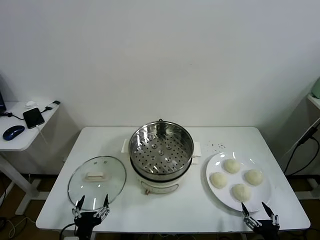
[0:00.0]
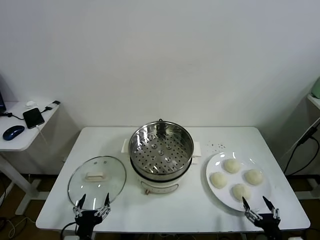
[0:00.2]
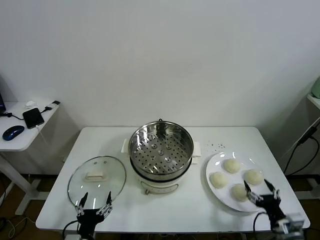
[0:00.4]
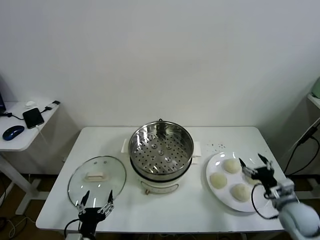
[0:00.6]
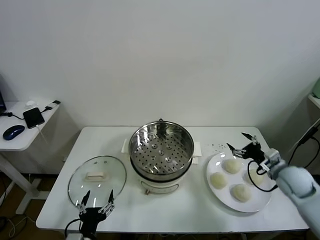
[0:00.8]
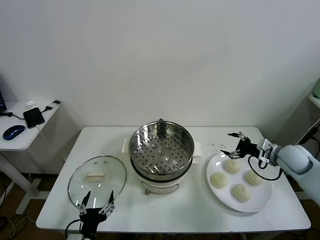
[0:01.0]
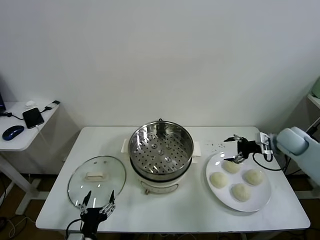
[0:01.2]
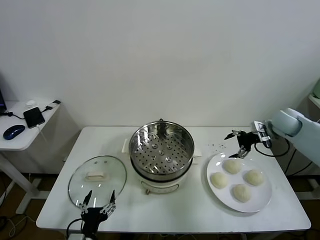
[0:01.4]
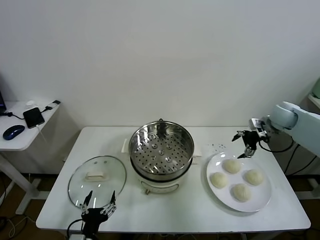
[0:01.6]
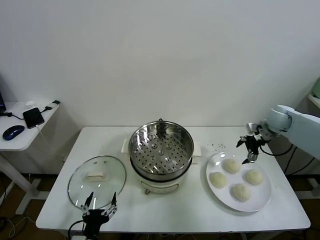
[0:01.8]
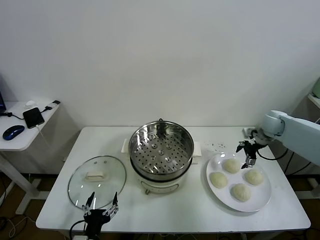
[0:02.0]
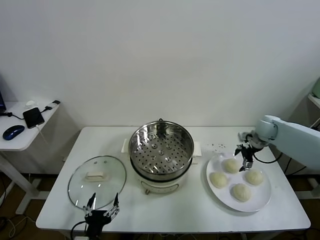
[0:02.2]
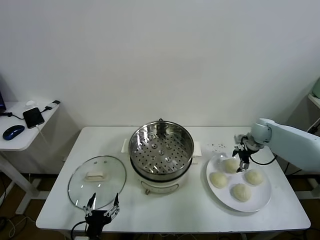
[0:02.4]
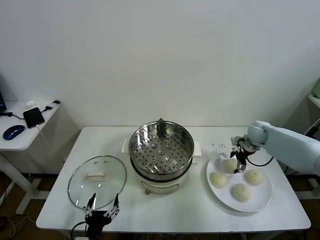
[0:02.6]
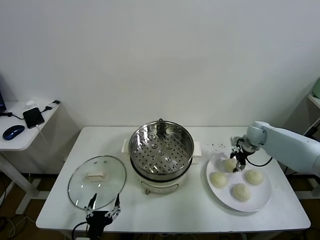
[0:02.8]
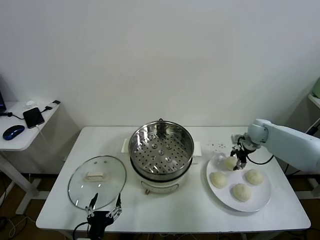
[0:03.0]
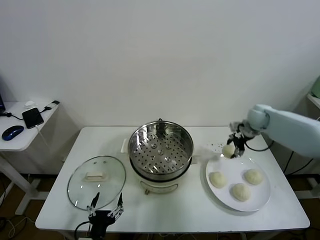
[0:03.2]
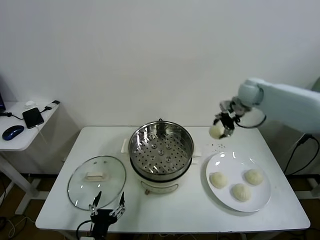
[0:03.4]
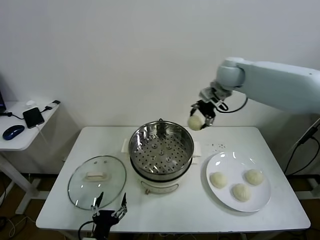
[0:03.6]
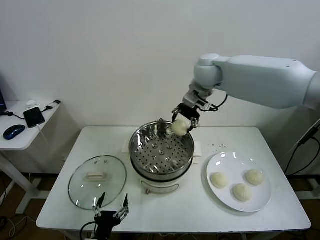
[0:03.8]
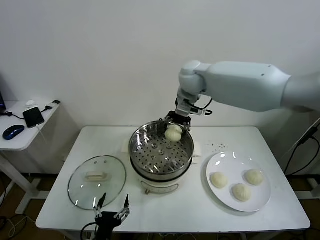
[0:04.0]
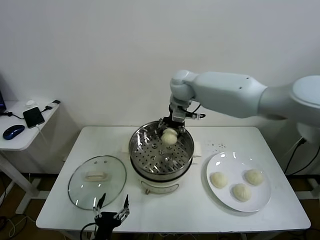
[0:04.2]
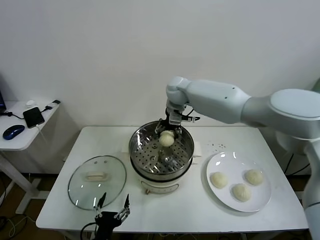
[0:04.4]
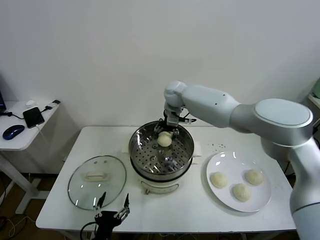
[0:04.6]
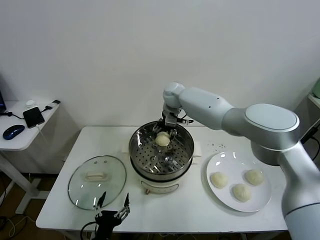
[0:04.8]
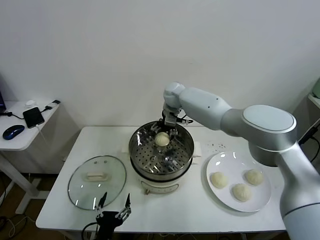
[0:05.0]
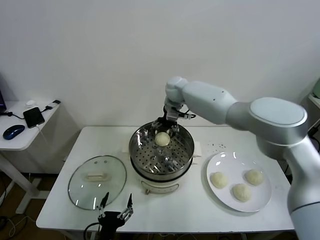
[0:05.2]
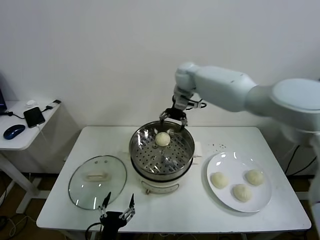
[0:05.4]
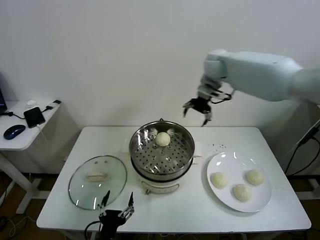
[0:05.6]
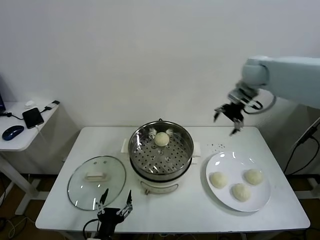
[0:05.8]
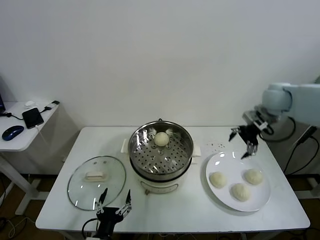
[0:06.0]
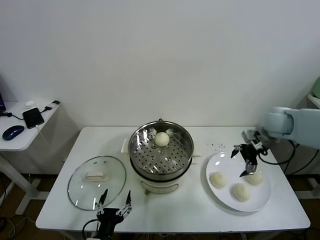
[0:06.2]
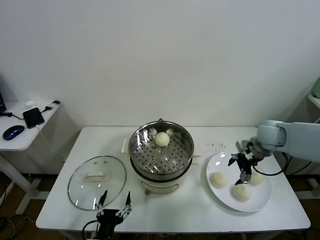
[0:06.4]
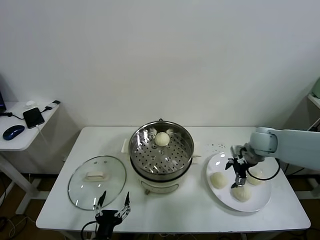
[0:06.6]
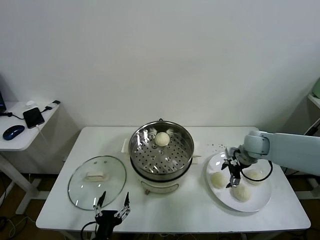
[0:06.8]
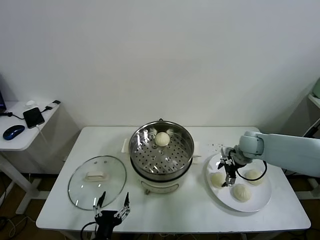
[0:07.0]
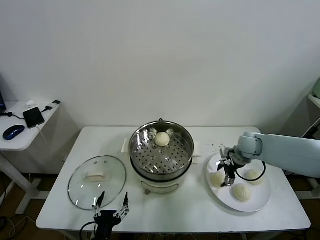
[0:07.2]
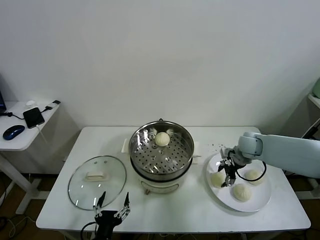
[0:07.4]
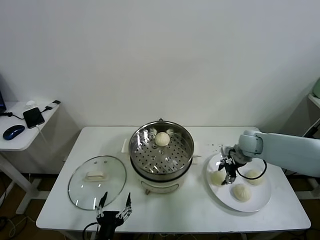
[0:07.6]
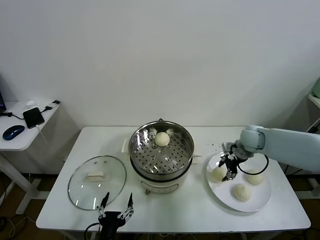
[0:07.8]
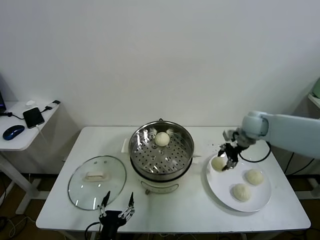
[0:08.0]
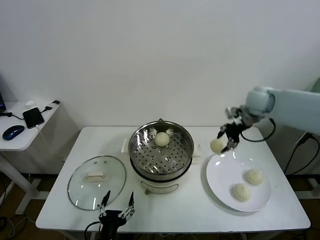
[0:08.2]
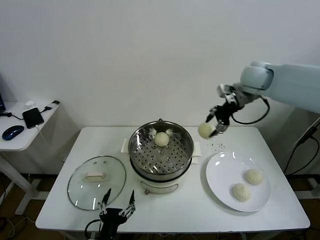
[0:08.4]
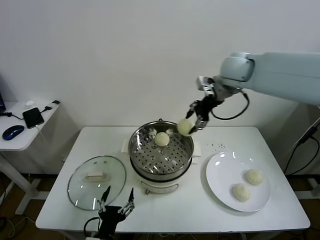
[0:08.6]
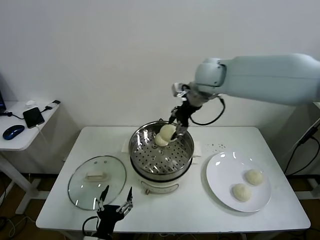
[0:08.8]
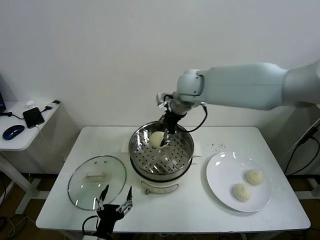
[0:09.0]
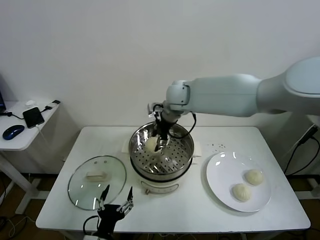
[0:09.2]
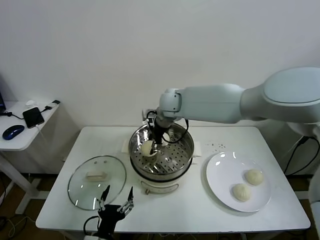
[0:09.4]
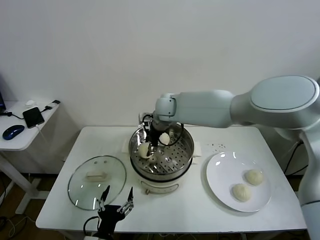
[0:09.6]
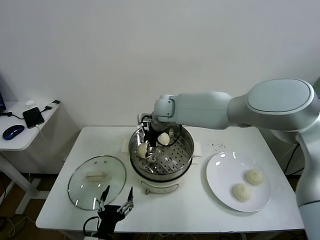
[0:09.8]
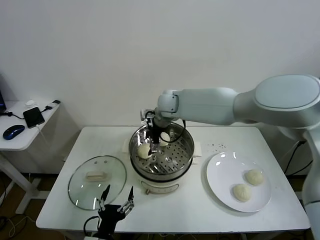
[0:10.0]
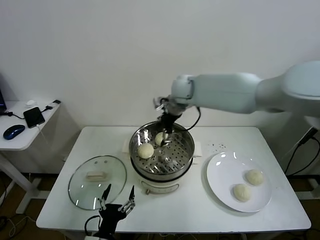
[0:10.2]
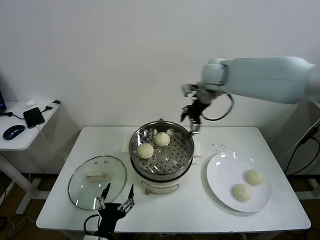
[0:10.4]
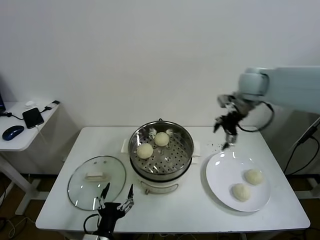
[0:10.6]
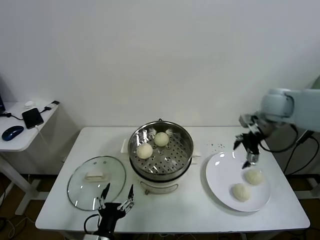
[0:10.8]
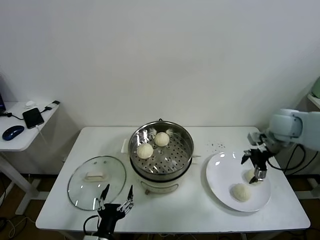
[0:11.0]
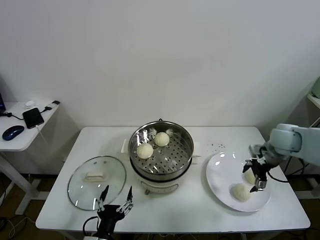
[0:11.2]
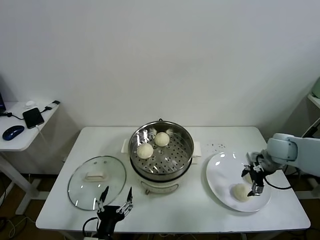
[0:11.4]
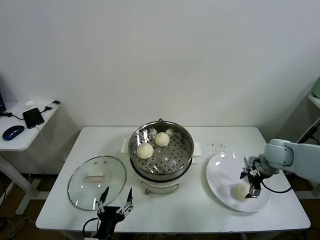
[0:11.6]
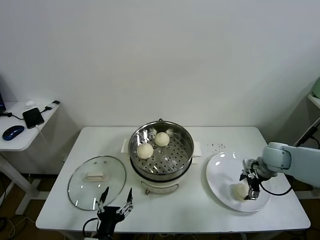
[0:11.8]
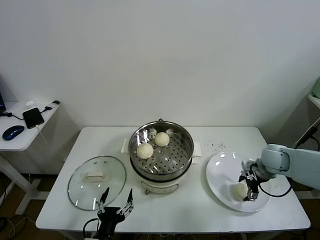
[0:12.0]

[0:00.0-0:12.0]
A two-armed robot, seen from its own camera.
Task of the whole recording: take steamed baozi put them in steamer.
Step, 0:00.0 to 0:02.8: Grasp the baozi in the plate with right gripper.
Step, 0:03.0 to 0:05.0: Place the baozi on the steamer with right gripper.
Step, 0:05.2 to 0:07.2: Grasp the baozi in the plate with right gripper.
Step, 0:07.4 to 0:09.8: Place the baozi on the steamer with right gripper.
0:01.6 to 0:03.0: The right gripper goes approximately 5 cm downward, and closes its fingers.
0:03.0 to 0:04.4: The right gripper is displaced to the left by roughly 35 cm.
0:04.4 to 0:06.0: The right gripper goes approximately 30 cm to the right, and opens its fingers.
0:06.0 to 0:07.6: The right gripper travels downward by about 15 cm, and closes its fingers.
0:07.6 to 0:09.0: The right gripper shifts roughly 35 cm to the left and upward.
0:09.0 to 0:10.4: The right gripper shifts roughly 15 cm to the right, and opens its fingers.
0:10.4 to 0:12.0: The right gripper moves downward, to the right and backward, approximately 35 cm.

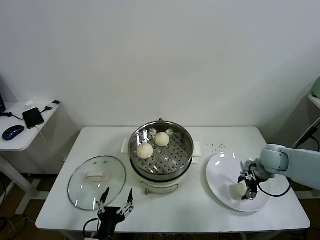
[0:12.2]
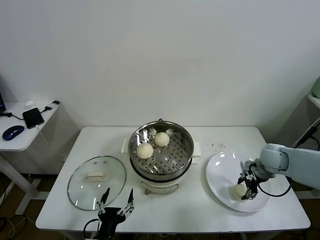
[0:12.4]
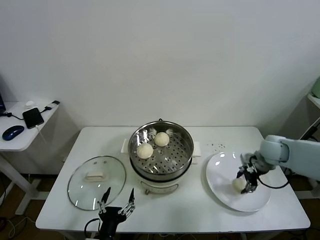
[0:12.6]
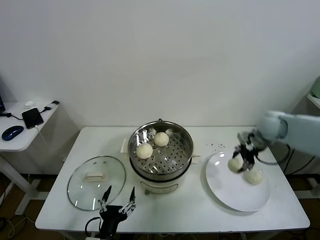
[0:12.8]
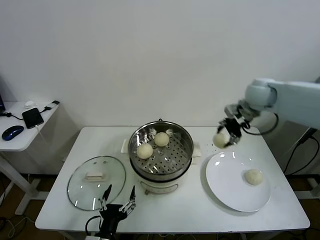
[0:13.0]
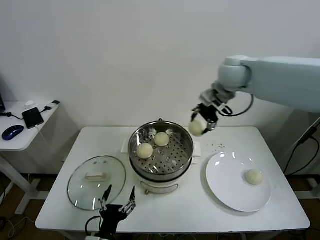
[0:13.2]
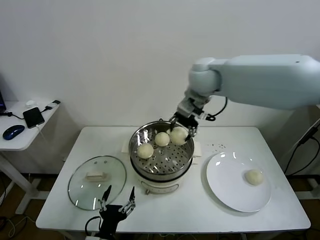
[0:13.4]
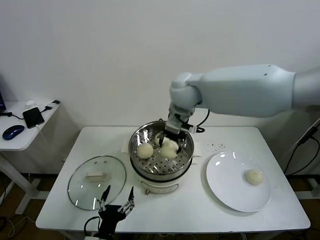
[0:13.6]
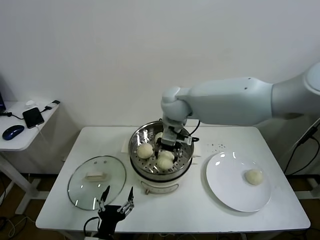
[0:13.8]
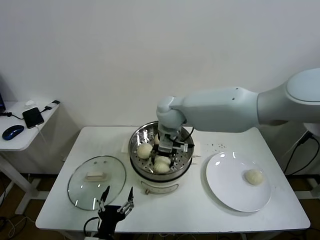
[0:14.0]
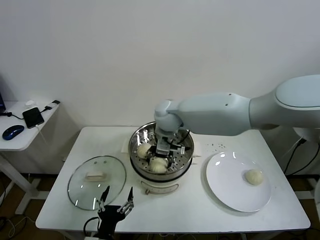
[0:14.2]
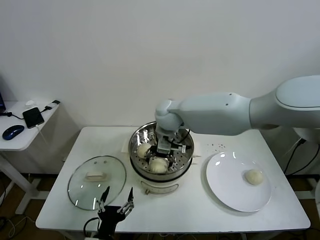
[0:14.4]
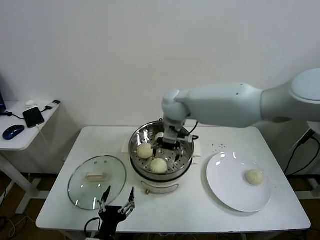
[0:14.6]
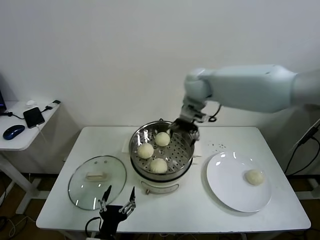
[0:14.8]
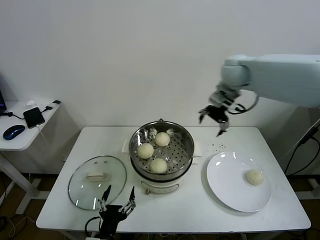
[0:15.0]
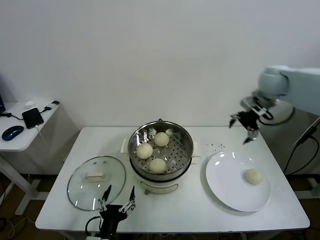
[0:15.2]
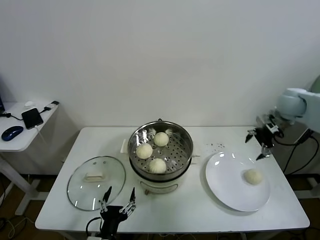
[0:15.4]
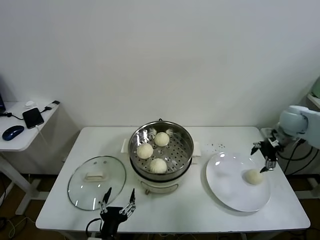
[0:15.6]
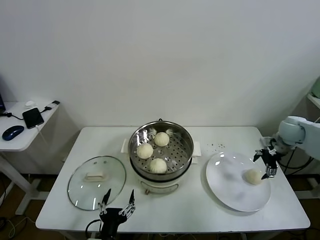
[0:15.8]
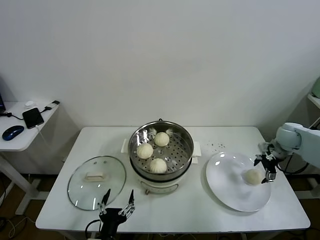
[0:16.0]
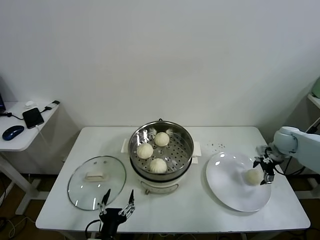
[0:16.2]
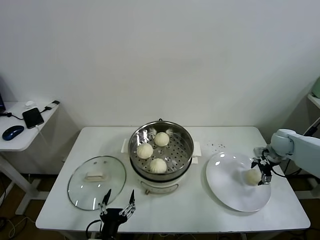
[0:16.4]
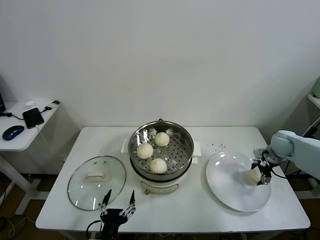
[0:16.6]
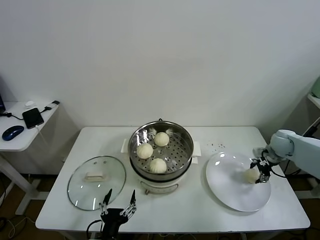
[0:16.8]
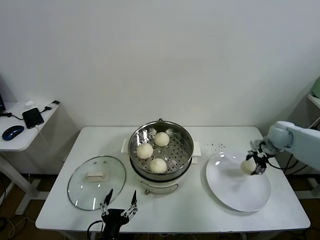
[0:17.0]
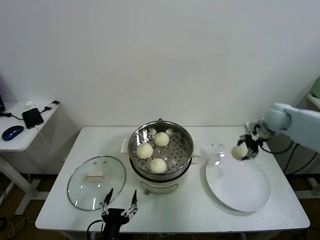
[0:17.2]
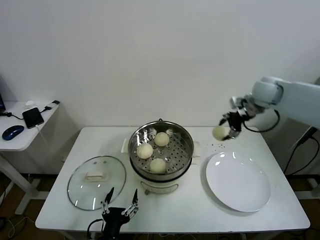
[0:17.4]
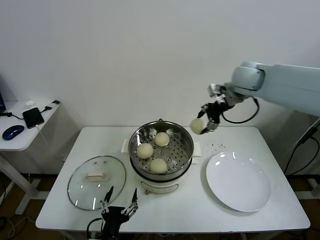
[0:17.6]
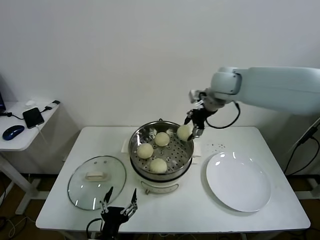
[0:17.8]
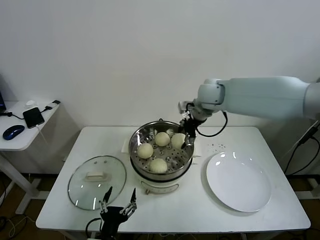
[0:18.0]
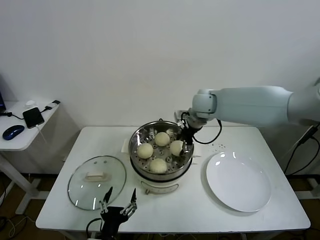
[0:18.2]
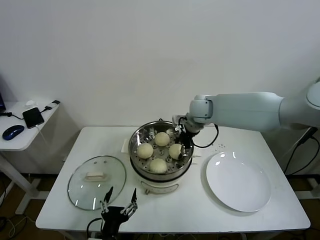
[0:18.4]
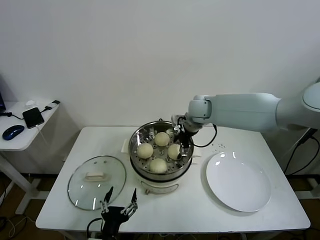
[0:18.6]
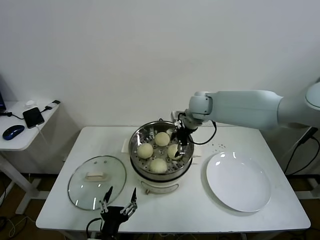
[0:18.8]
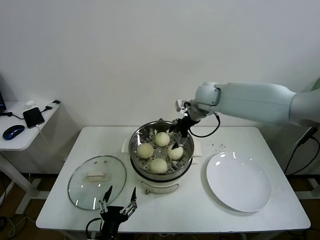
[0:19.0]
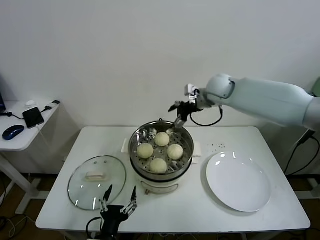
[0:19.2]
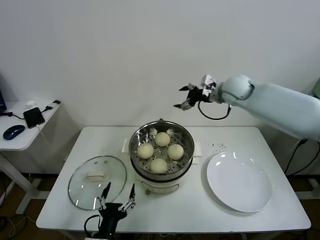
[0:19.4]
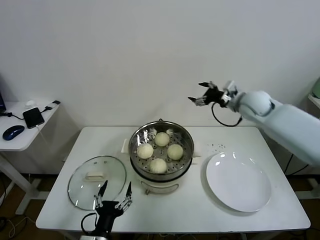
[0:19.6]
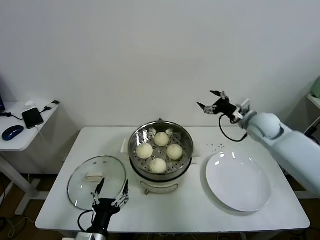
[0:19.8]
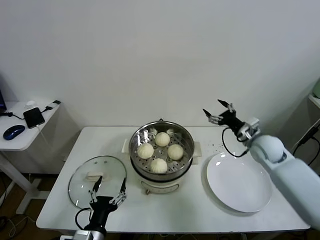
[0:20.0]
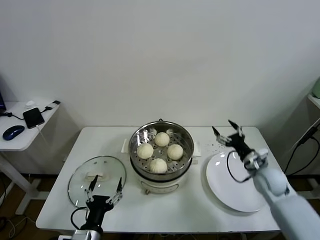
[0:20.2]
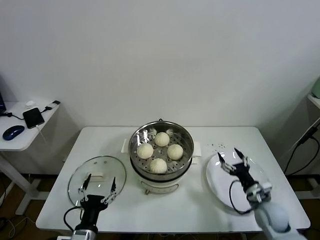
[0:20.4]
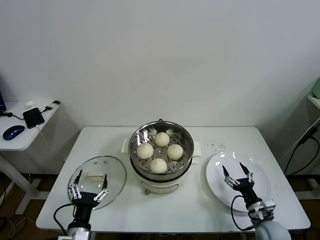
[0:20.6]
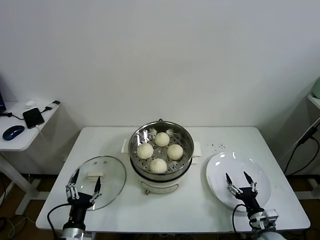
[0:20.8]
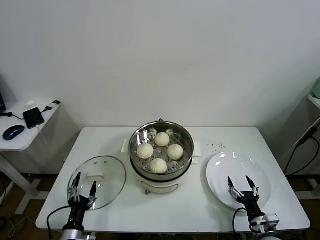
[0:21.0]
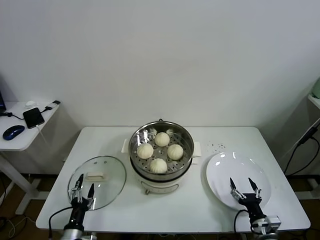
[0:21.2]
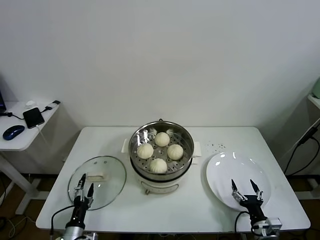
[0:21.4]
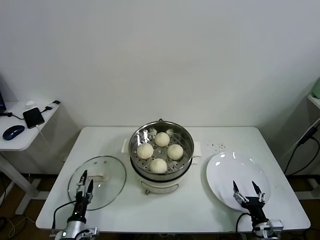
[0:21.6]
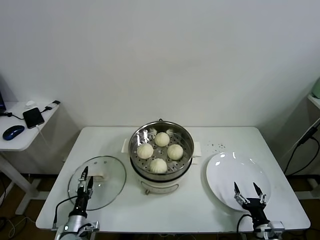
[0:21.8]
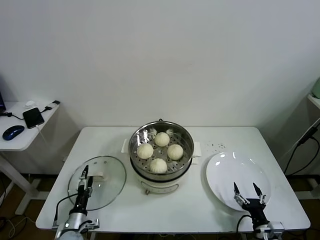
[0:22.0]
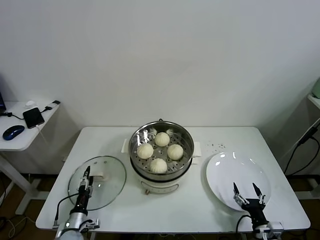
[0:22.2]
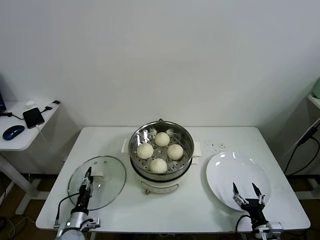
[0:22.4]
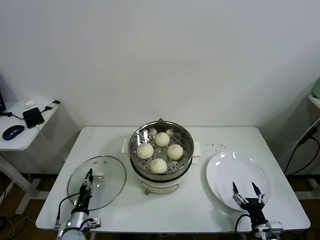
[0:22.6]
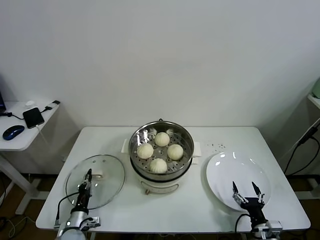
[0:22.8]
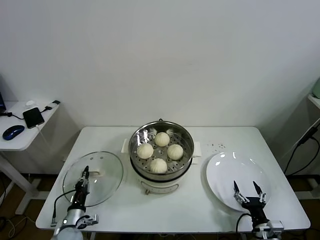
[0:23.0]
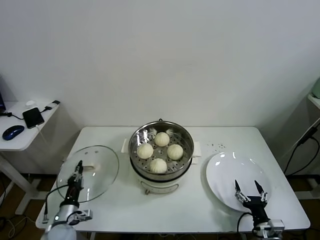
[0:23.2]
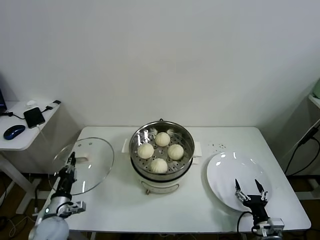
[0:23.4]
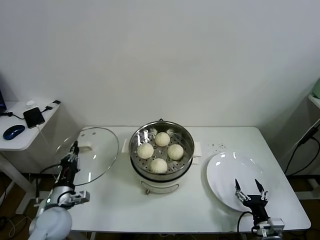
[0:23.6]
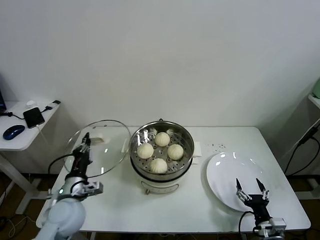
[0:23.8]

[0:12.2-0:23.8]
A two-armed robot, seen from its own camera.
Task of the whole recording: take steamed baozi put them in steamer.
Step, 0:12.4 to 0:14.2: Place the baozi on the steamer with right gripper.
Step, 0:14.6 to 0:16.8: Grasp the baozi in the plate with right gripper.
Step, 0:17.0 to 0:18.6: Place the baozi on the steamer with right gripper.
Step, 0:18.8 to 0:22.8: Grasp the pot lid with left gripper.
0:12.2 to 0:13.6: The right gripper moves to the left and upward, approximately 40 cm.
0:13.6 to 0:15.0: The right gripper moves to the right, about 20 cm, and opens.
0:15.0 to 0:16.6: The right gripper travels downward and to the right by roughly 35 cm, and closes its fingers.
0:16.6 to 0:18.0: The right gripper shifts some 35 cm to the left and upward.
0:18.0 to 0:19.4: The right gripper shifts about 10 cm to the right, and opens.
0:19.4 to 0:21.0: The right gripper goes about 50 cm downward and backward. Meanwhile the left gripper travels to the left and downward by roughly 15 cm.
0:21.0 to 0:22.4: The left gripper is displaced downward and forward by approximately 10 cm, and closes its fingers.
0:22.4 to 0:23.8: The left gripper goes roughly 20 cm upward, and closes.
